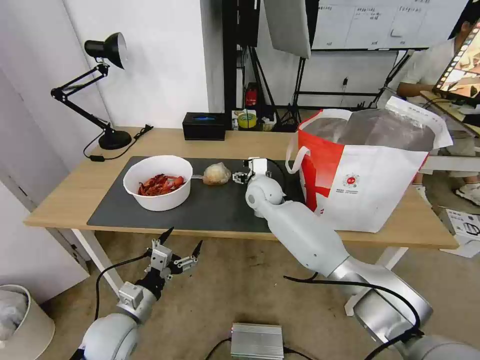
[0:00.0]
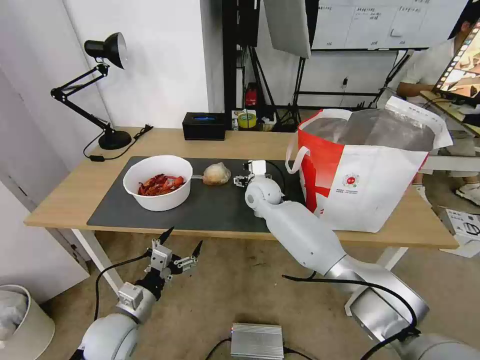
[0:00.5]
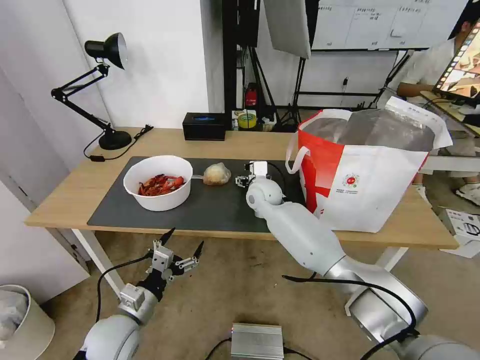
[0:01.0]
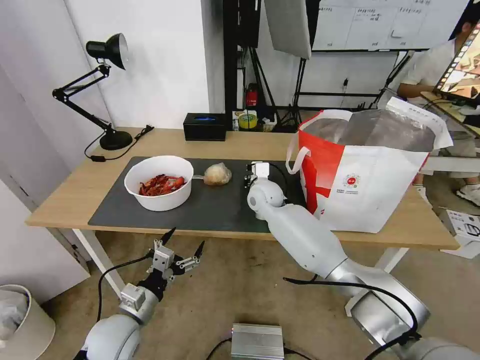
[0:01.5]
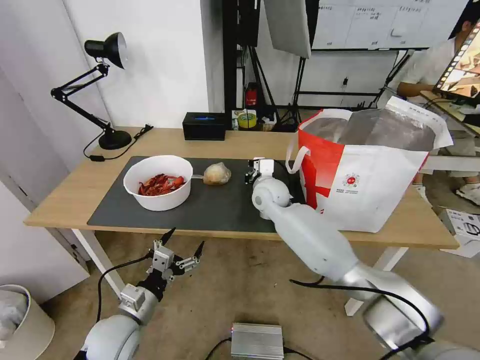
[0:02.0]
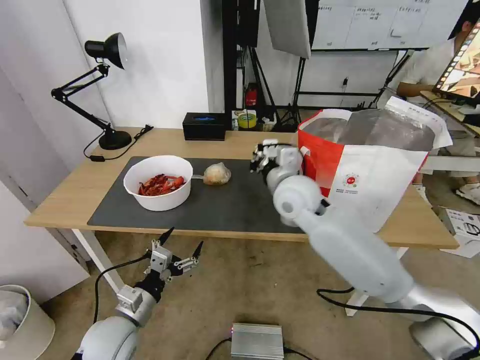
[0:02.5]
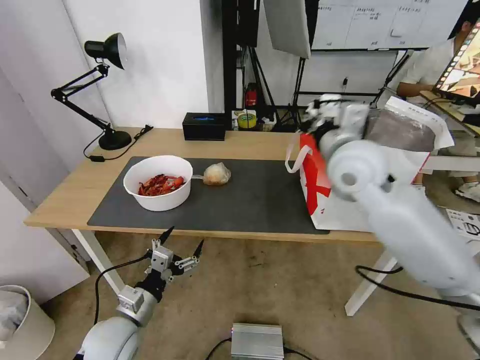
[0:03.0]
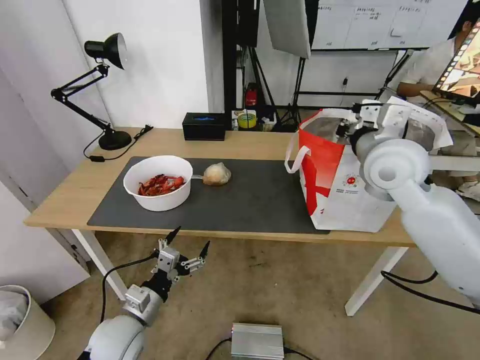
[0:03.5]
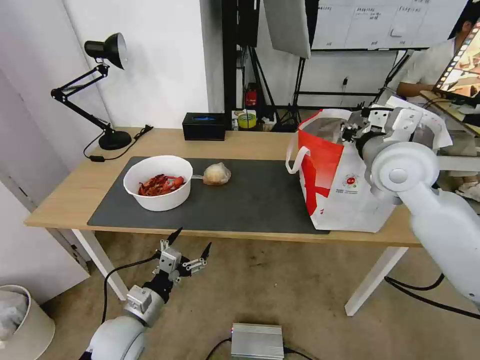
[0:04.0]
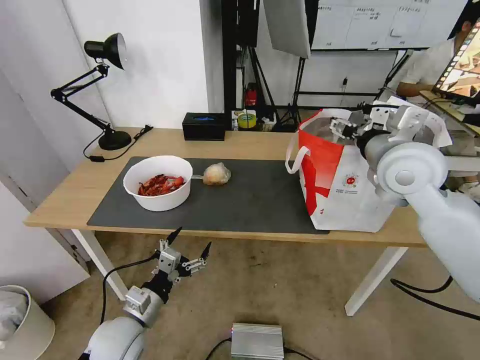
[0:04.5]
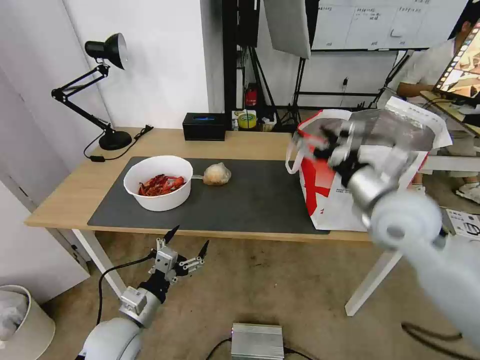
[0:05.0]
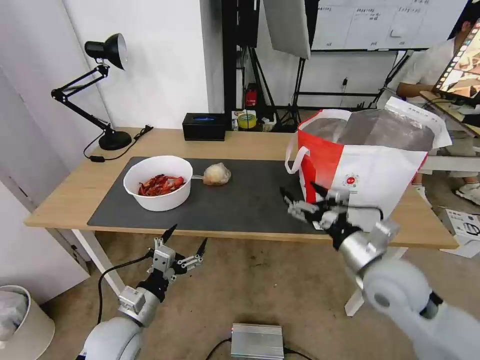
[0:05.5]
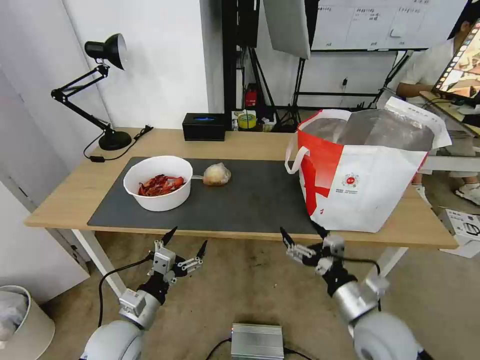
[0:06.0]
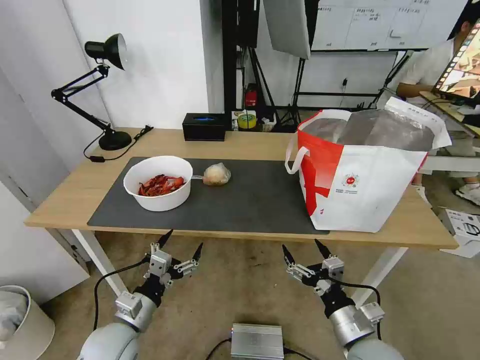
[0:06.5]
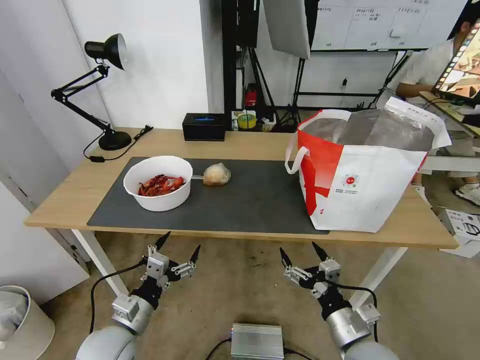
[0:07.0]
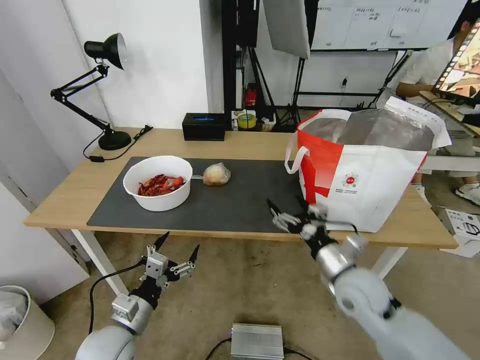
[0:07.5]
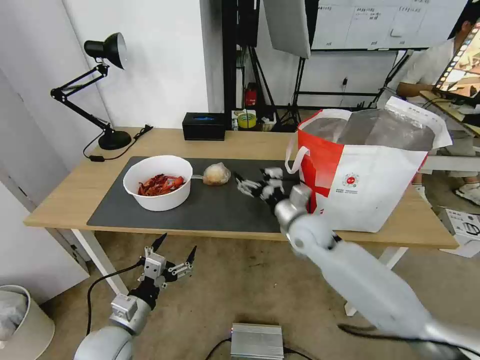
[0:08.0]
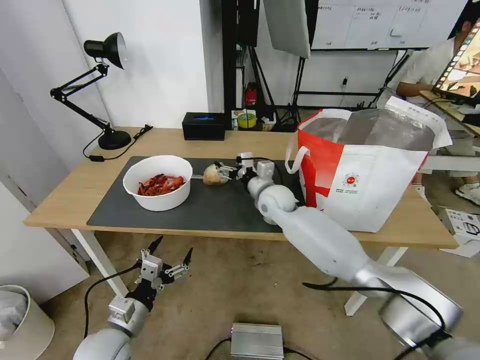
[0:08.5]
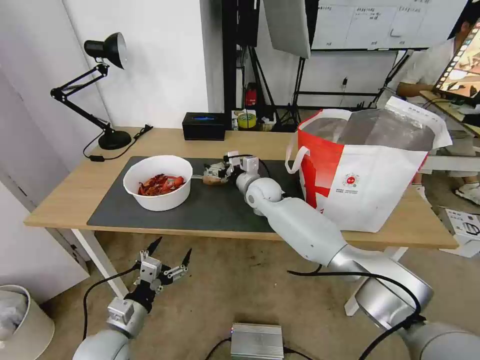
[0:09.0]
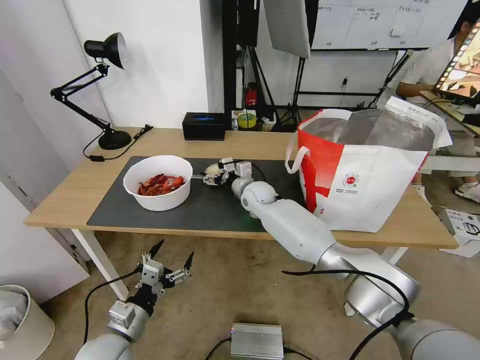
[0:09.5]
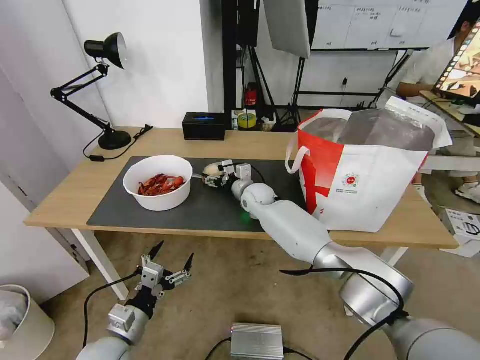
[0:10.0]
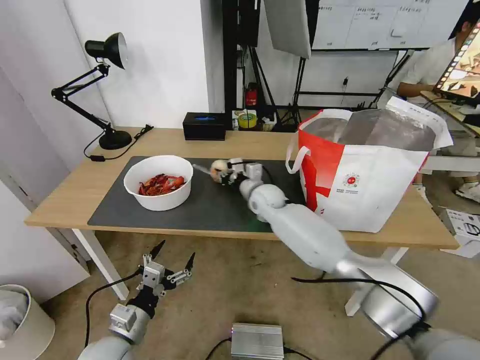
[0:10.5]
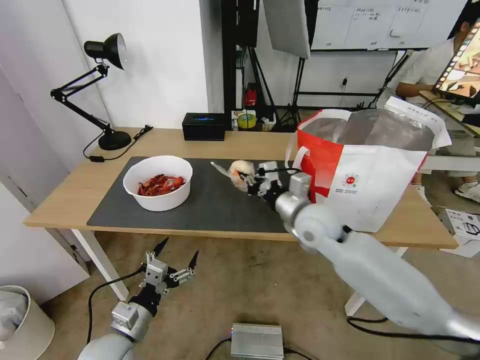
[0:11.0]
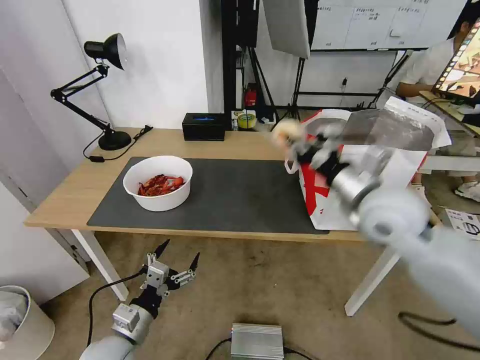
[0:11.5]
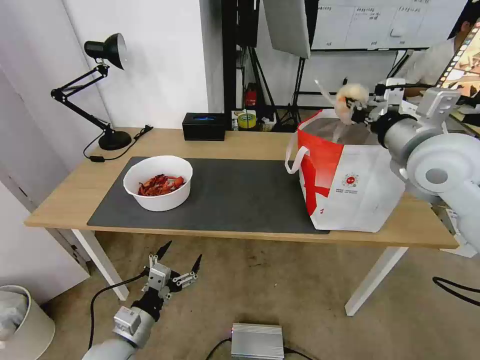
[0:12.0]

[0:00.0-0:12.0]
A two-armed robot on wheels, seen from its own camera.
Task of the whole recording: Pick up the trash from the table and place it into the takeout bag.
0:00.0 to 0:02.0: The right gripper closes.
0:02.0 to 0:04.0: The right gripper heads to the right, upward and backward, covering about 30 cm, and opens its fingers.
0:04.0 to 0:06.0: The right gripper moves downward and backward, some 35 cm, and opens.
0:06.0 to 0:08.0: The right gripper heads forward and to the left, covering approximately 25 cm.
0:08.0 to 0:10.0: The right gripper is displaced forward and to the left by approximately 20 cm.
0:10.0 to 0:12.0: The right gripper moves upward, to the right and backward, approximately 40 cm, and closes.

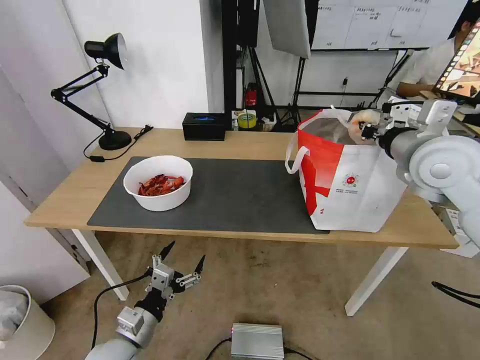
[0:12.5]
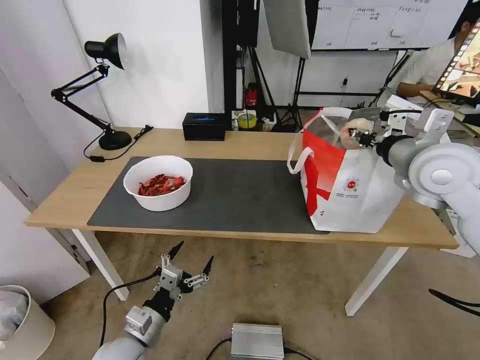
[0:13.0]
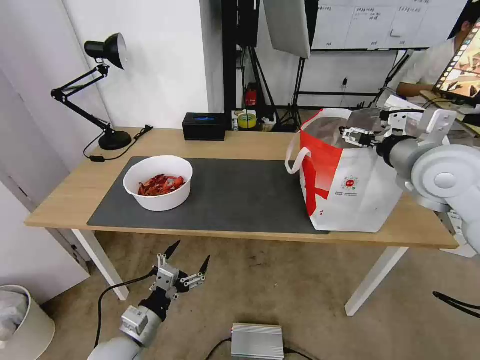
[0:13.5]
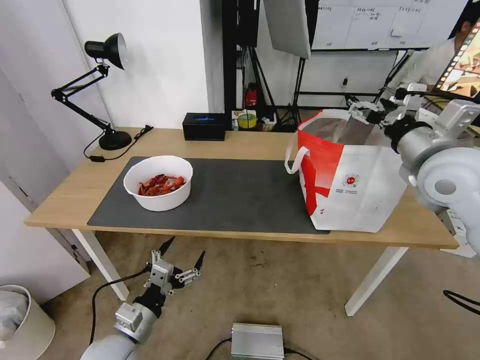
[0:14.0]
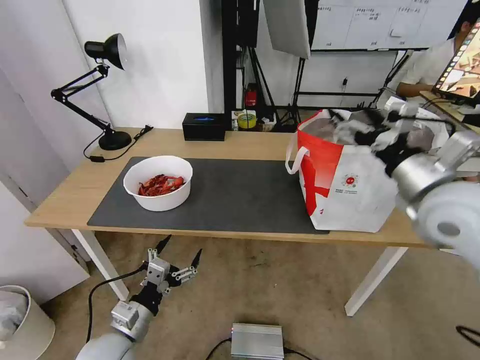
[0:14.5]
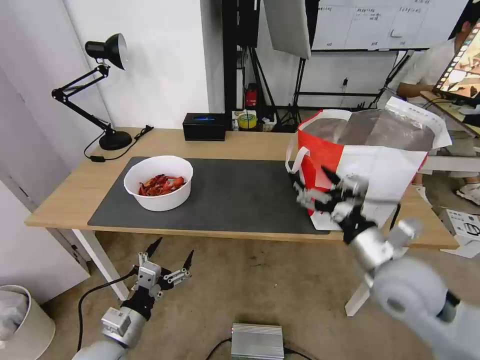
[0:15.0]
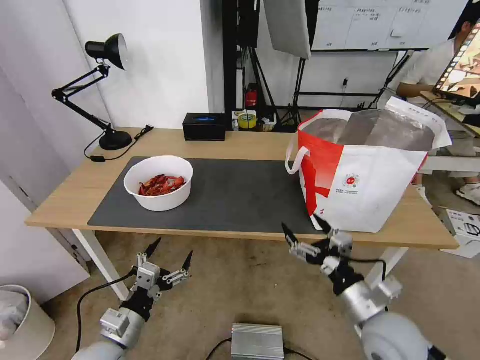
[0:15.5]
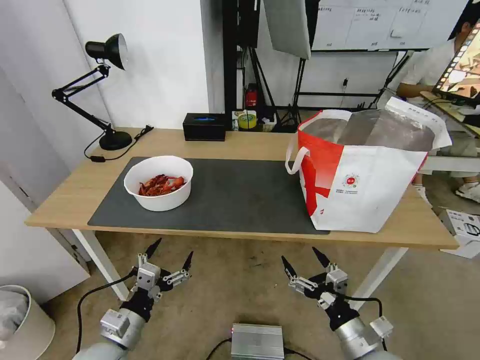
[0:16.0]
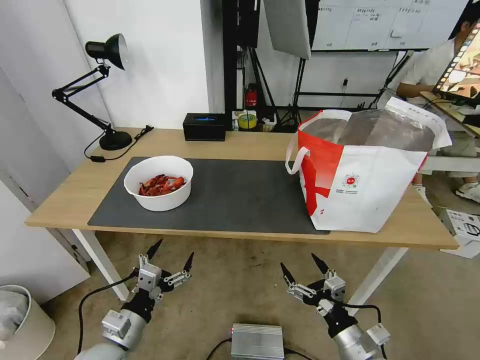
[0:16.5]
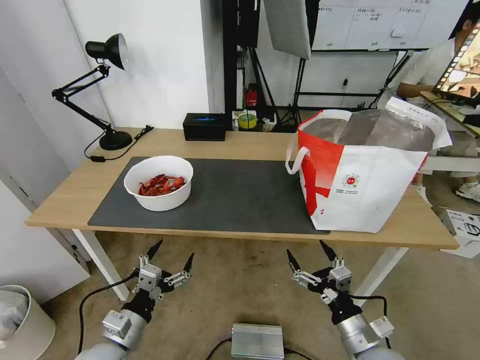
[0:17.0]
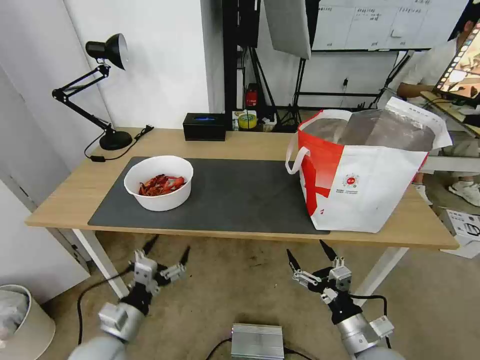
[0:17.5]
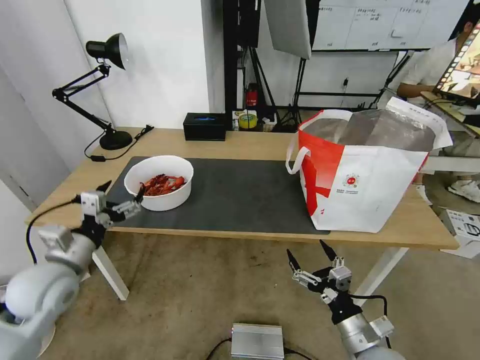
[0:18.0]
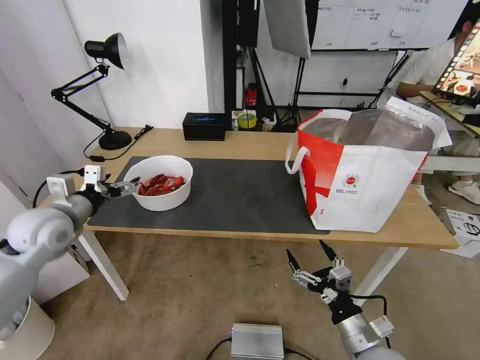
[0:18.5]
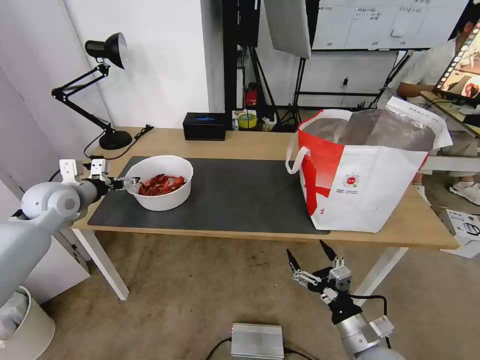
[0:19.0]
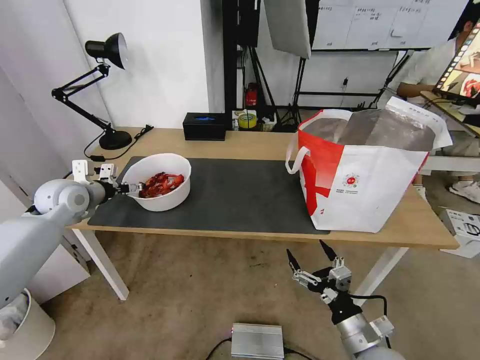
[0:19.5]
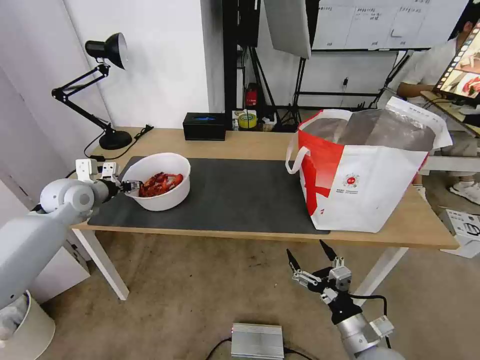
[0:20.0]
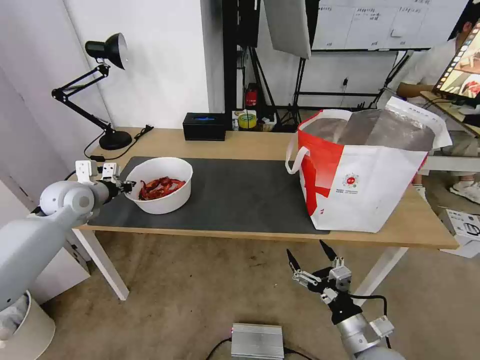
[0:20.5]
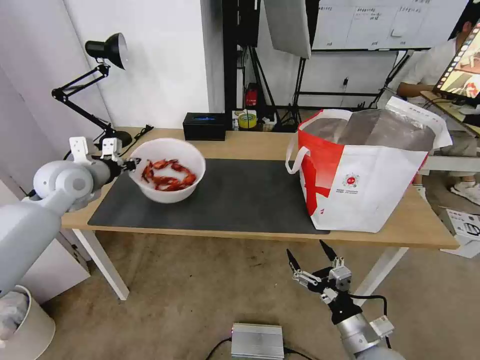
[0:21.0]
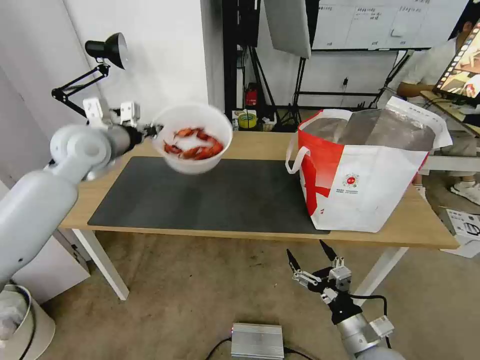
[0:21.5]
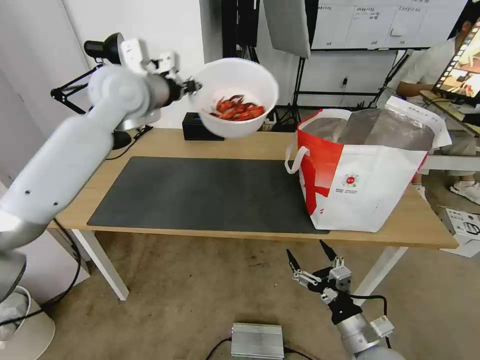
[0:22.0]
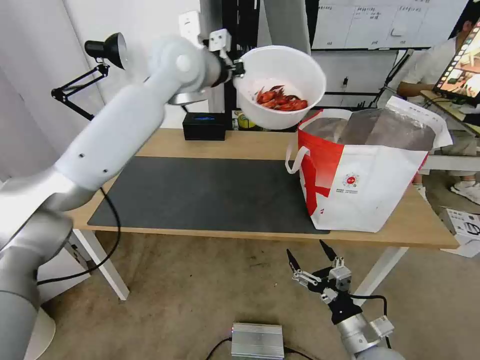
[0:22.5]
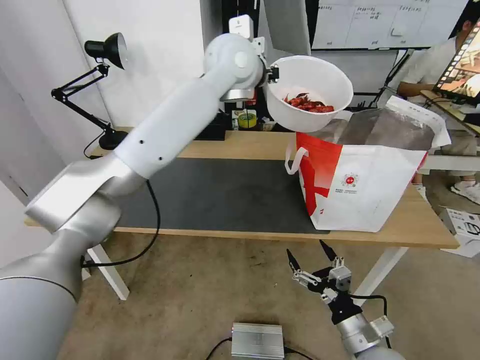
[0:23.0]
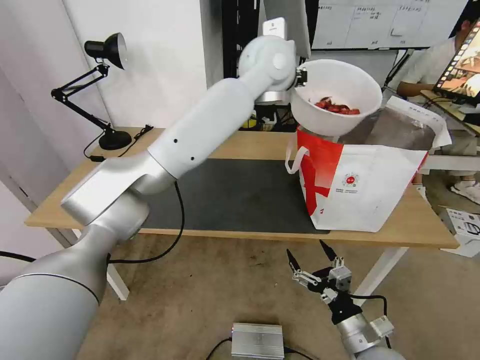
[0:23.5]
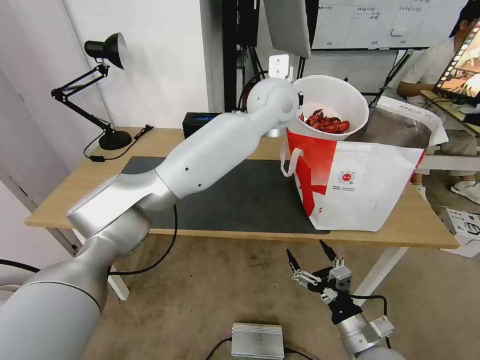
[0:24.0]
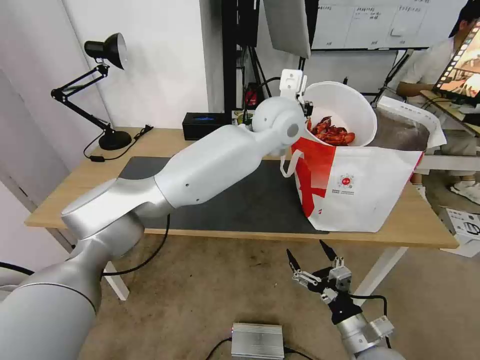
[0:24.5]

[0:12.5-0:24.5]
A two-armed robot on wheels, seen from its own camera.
Task of the whole recording: Pick up the trash from the table and place it into the takeout bag.
0:12.5 to 0:14.5: The right gripper is displaced backward by roughly 5 cm, and opens.
0:14.5 to 0:16.5: The right gripper goes approximately 35 cm downward and backward.
0:16.5 to 0:18.5: The left gripper heads forward, upward and to the left, covering roughly 30 cm.
0:18.5 to 0:20.5: The left gripper shifts some 10 cm forward, and closes its fingers.
0:20.5 to 0:22.5: The left gripper moves to the right and upward, some 40 cm.
0:22.5 to 0:24.5: The left gripper is displaced to the right and downward by approximately 20 cm.

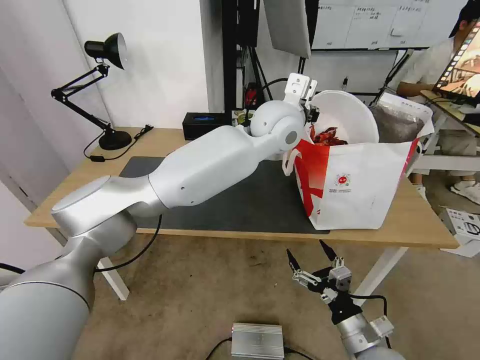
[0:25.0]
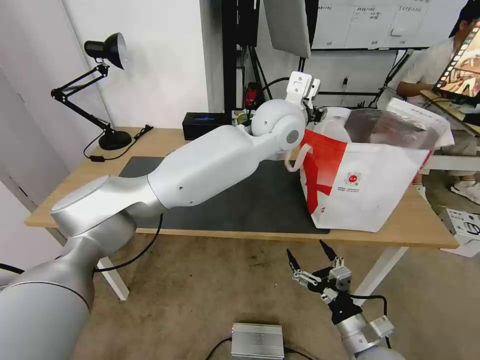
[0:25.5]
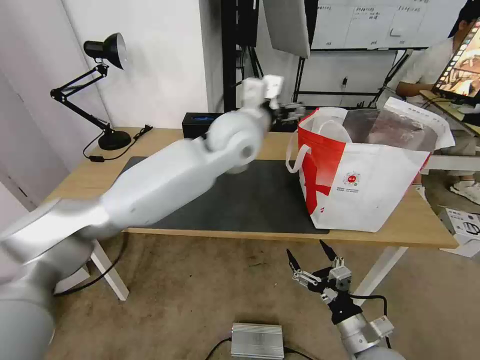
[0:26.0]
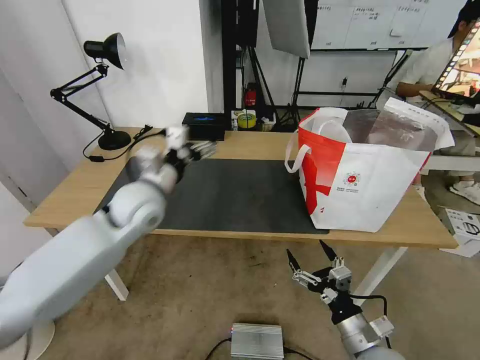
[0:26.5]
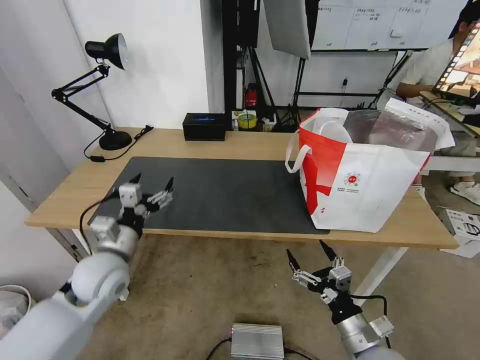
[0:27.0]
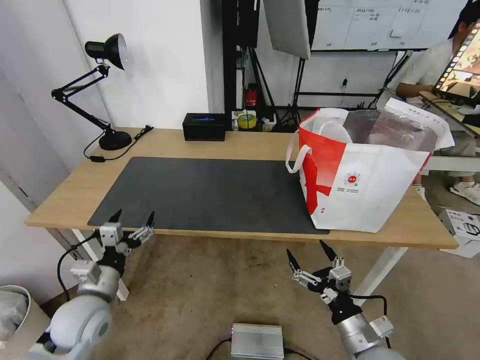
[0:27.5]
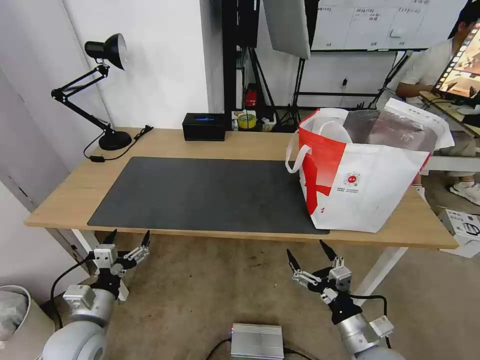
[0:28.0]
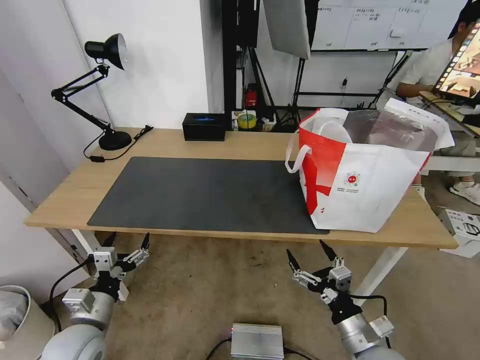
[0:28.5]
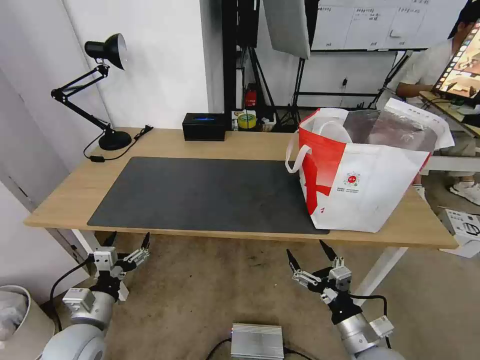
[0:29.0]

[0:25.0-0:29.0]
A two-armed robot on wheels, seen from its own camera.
Task of the whole recording: Pick up the trash from the table and place it into the takeout bag.
0:25.0 to 0:27.0: The left gripper shifts about 50 cm to the left, downward and backward, and opens its fingers.
0:27.0 to 0:29.0: The left gripper is displaced backward and downward by some 15 cm.
